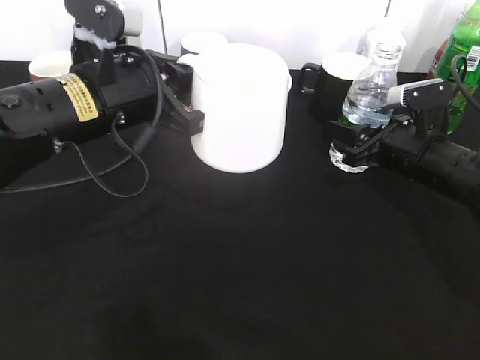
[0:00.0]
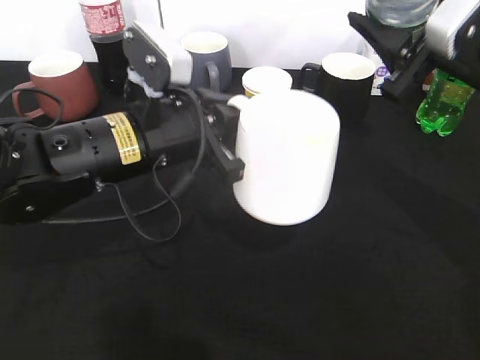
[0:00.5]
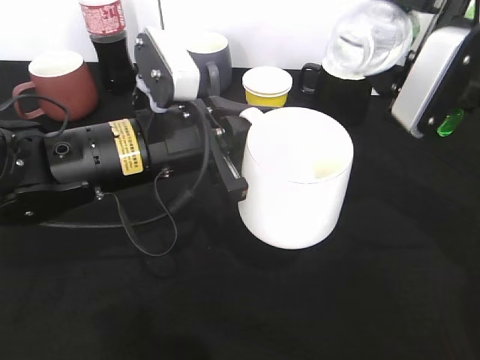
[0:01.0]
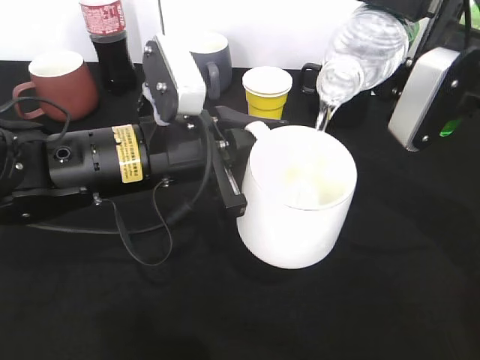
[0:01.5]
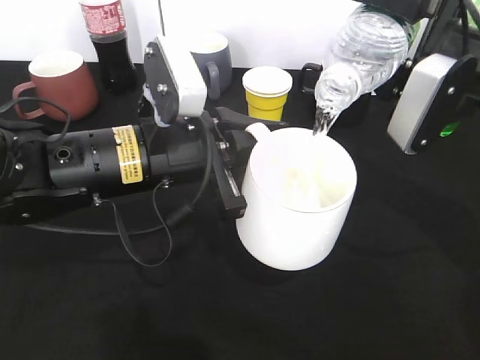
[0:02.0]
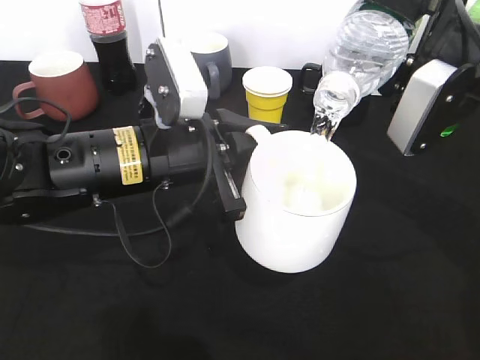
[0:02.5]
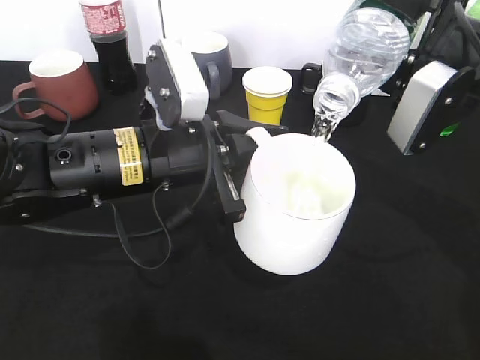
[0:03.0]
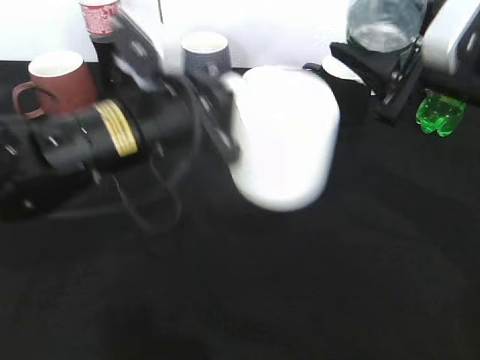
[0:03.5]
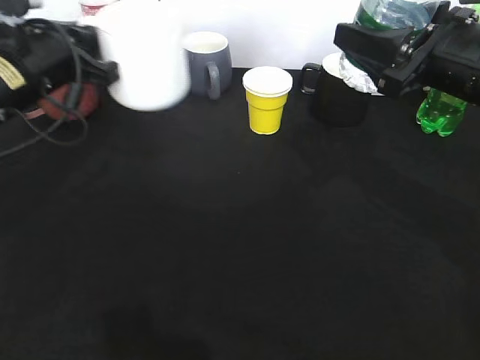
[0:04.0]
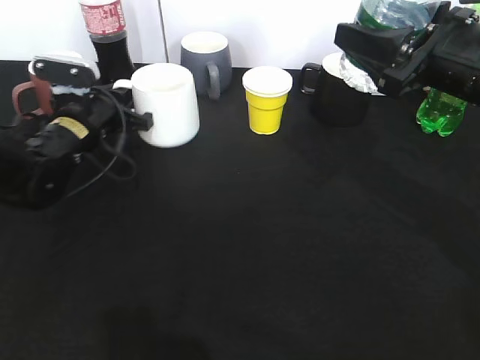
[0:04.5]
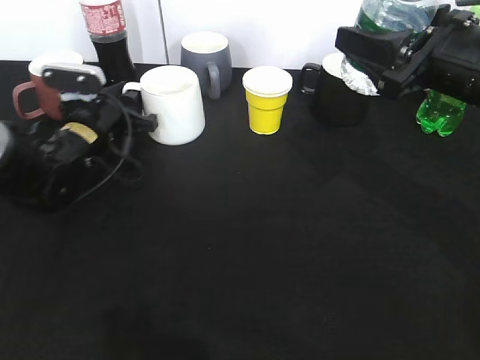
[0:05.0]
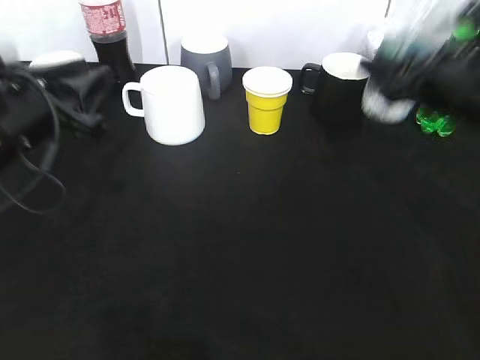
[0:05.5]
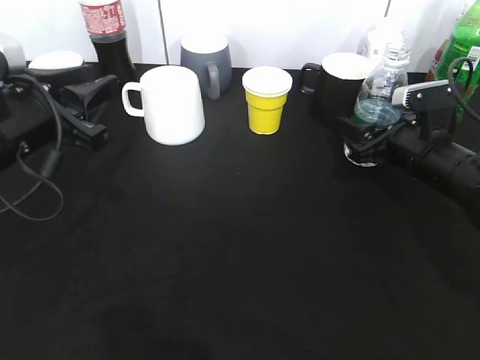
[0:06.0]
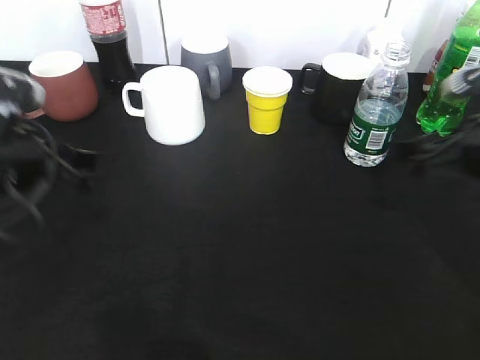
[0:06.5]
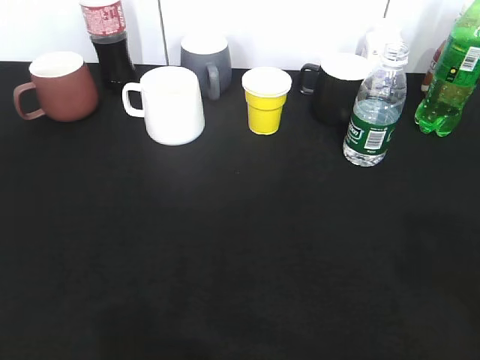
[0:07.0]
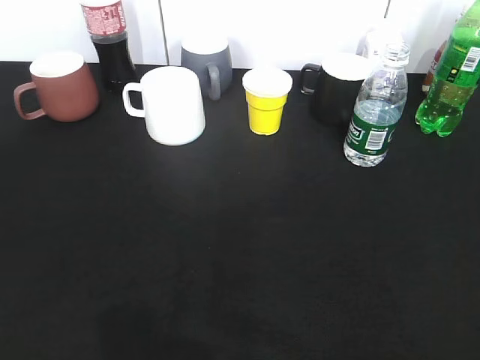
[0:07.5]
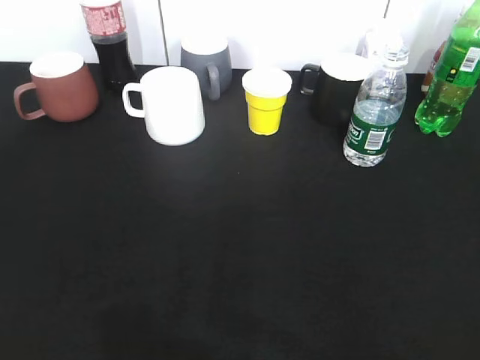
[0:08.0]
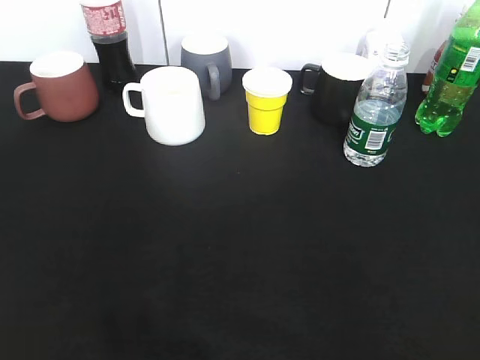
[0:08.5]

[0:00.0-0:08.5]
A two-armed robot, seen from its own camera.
Step, 0:00.0 to 0:03.5: Pour the water from bottle to cup with right gripper.
Step, 0:04.0 to 0:05.0: Place the white cup on the table with left gripper.
Step, 0:05.5 to 0:06.0: Place the water bottle on the table with right gripper.
0:00.0 to 0:02.0: The left gripper ends up roughly 5 cm from where it was; the right gripper moves upward, approximately 15 cm.
0:02.0 to 0:04.0: The left gripper is displaced to the left and forward by about 15 cm.
0:04.0 to 0:06.5: The right gripper goes some 10 cm downward and to the right, and opens. The left gripper is displaced backward by roughly 10 cm, and opens its fingers.
0:06.5 to 0:08.5: The two grippers go some 25 cm backward.
